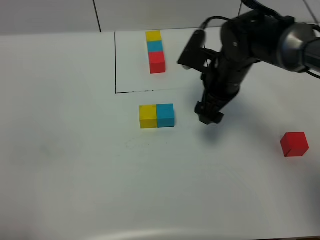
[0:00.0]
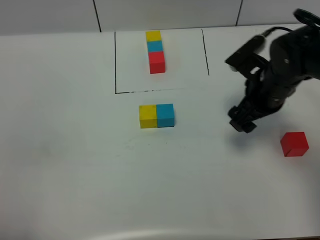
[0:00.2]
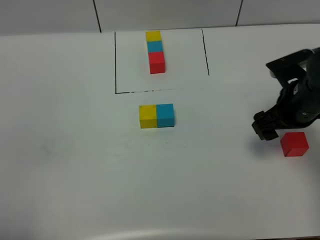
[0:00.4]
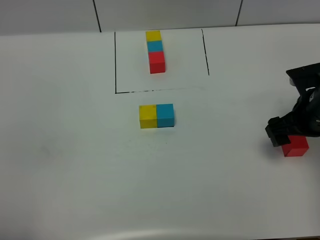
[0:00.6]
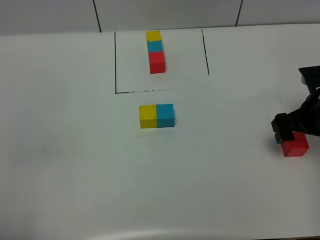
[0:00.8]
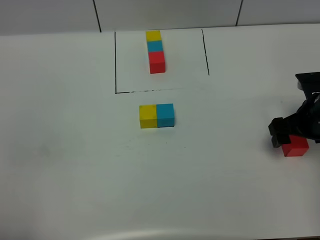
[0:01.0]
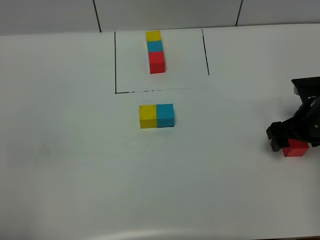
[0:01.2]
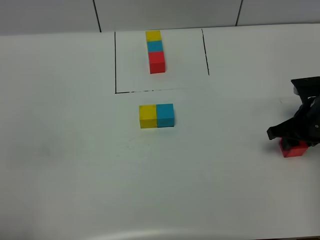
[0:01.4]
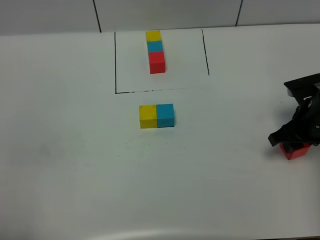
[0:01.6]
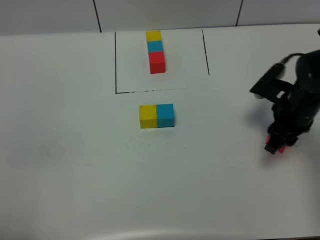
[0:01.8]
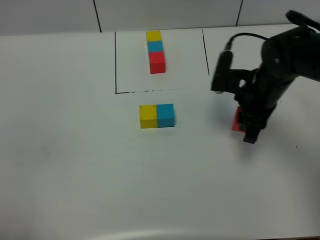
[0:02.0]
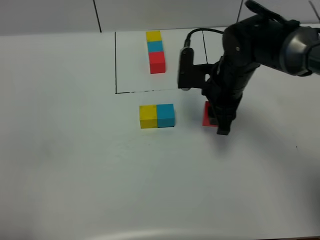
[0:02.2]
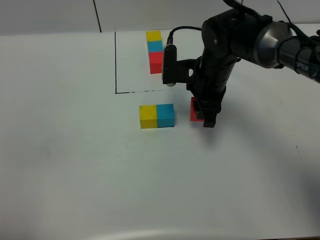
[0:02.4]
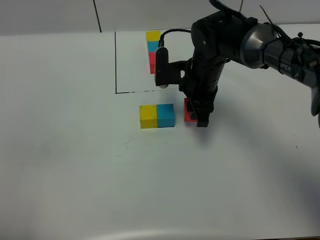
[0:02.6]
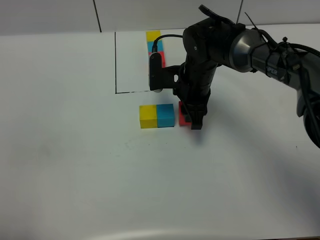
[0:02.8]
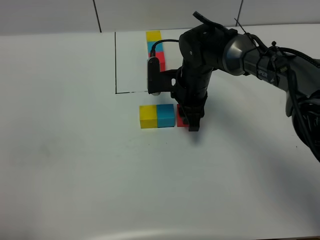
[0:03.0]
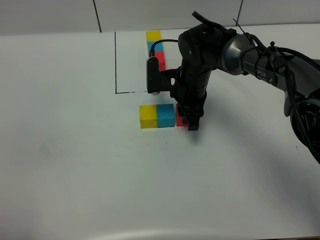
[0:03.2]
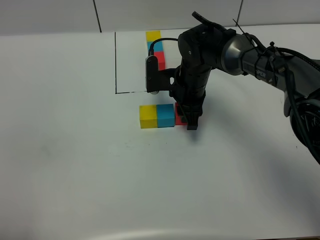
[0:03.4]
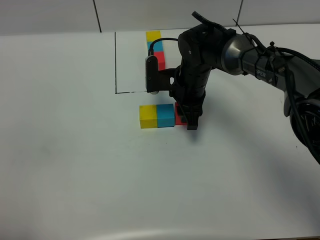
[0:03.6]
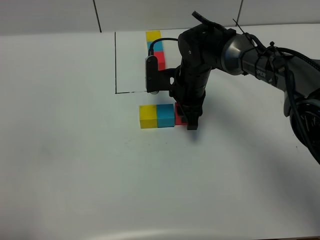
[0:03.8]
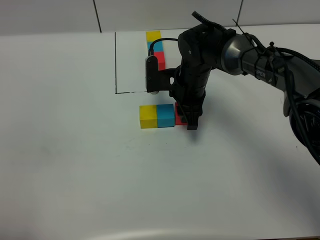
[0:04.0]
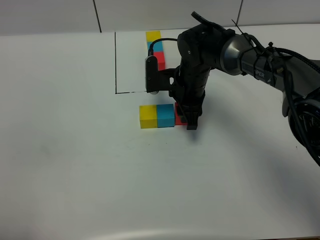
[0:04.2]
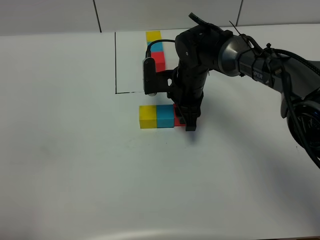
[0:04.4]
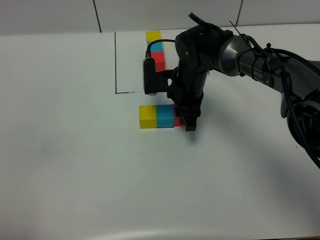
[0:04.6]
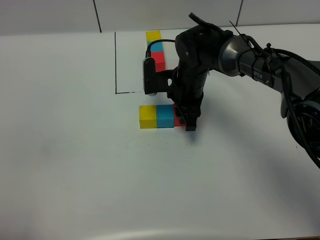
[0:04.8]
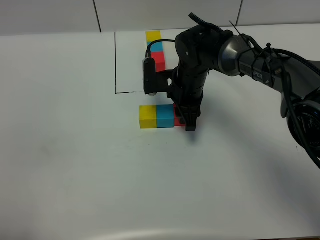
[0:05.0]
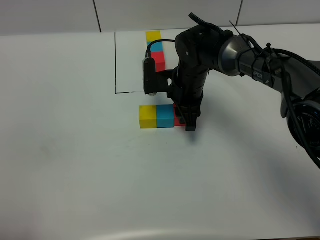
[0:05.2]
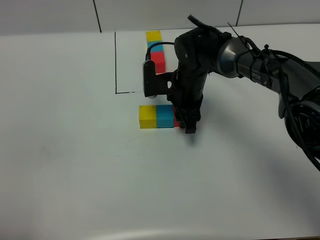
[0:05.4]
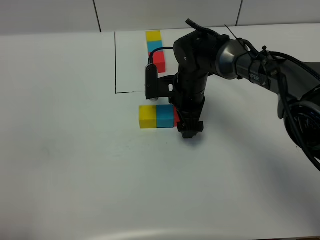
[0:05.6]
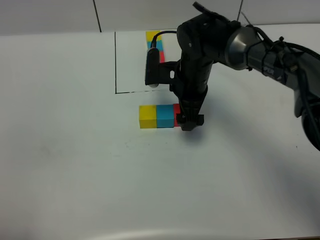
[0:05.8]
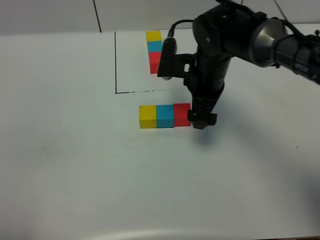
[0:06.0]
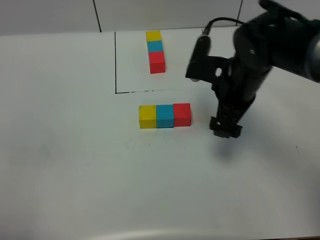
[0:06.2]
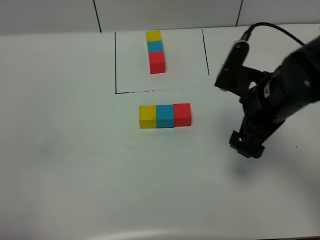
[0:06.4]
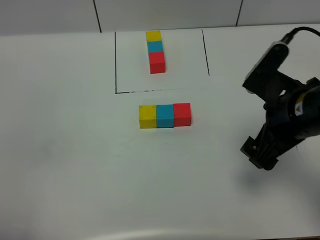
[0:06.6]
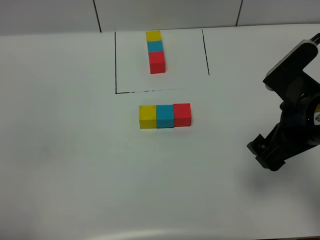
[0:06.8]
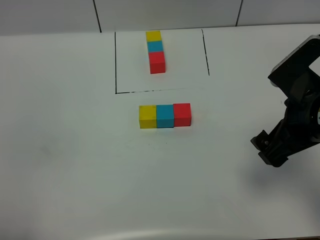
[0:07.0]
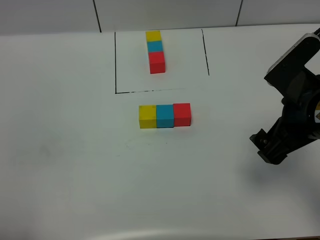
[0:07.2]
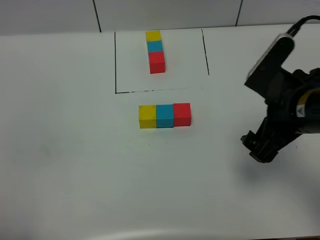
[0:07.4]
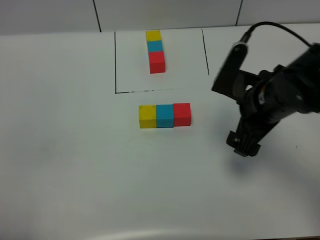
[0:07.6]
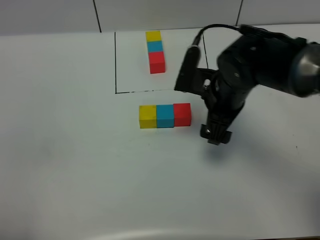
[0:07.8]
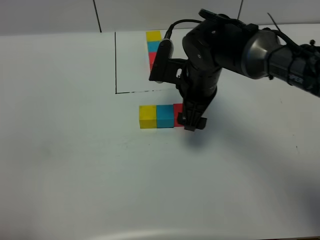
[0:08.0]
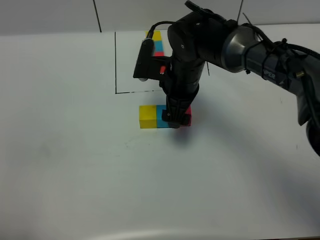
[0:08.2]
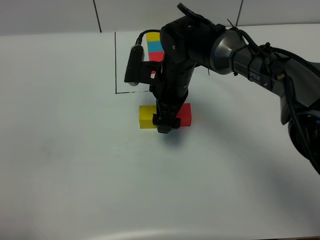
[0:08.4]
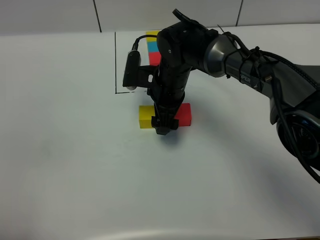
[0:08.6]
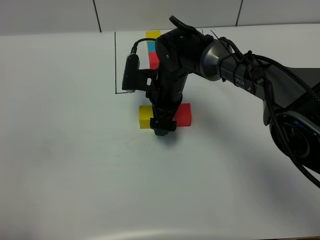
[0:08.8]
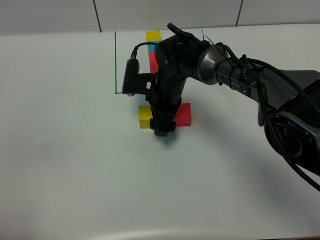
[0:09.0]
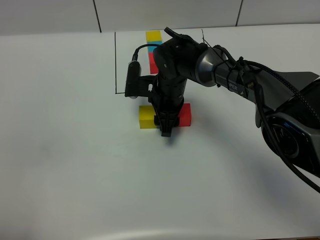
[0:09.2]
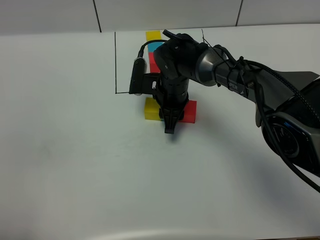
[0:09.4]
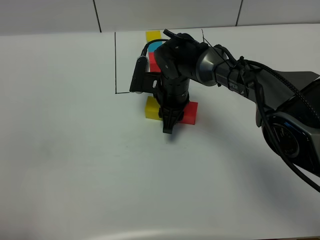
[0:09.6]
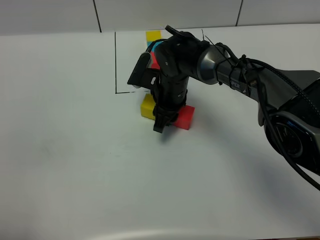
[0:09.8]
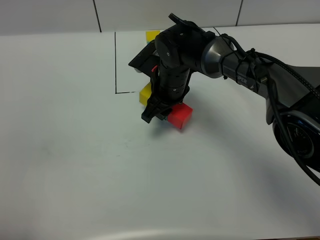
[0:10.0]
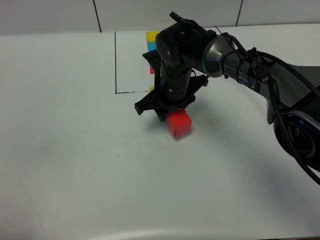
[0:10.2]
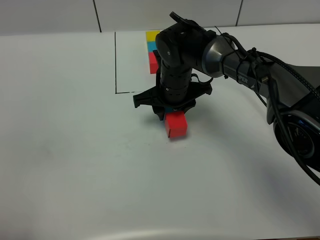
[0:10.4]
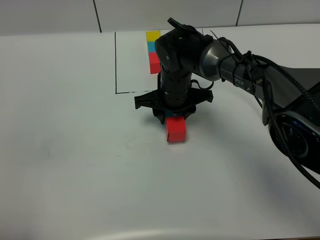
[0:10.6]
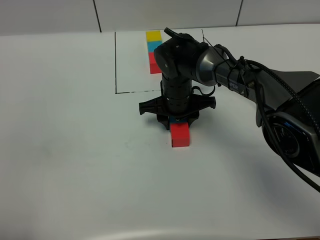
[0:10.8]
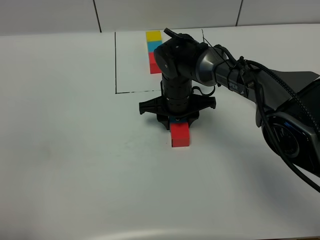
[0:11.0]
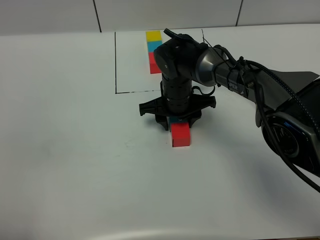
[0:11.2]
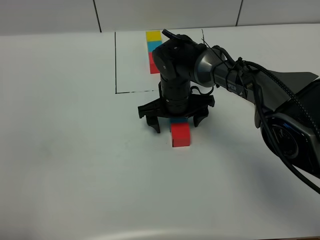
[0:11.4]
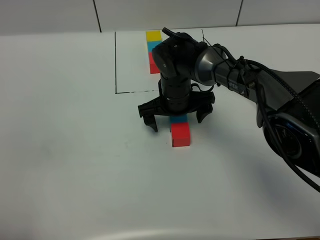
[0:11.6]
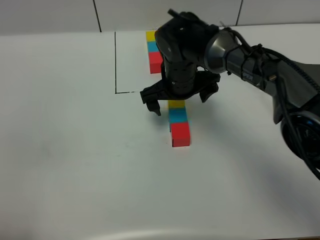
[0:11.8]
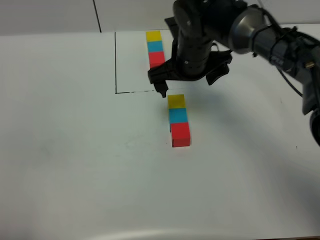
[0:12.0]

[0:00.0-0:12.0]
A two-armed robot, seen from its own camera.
Task of the whole recording: According to the building block template in front, assemble the scattered blocks together.
Step, 0:00.0 to 0:05.6: Put the red cube on the right of the blue cube.
Step, 0:05.8 to 0:11.6: Adjust the pose of the building blocks.
0:00.0 to 0:01.6: The right gripper goes roughly 15 cm to the right, and closes.
0:01.6 to 0:03.0: The right gripper goes approximately 20 cm to the left.
0:03.0 to 0:04.4: Both grippers stay about where they are.
0:04.4 to 0:06.0: The right gripper shifts roughly 5 cm upward, and opens.
0:06.0 to 0:07.6: The right gripper shifts approximately 10 cm backward and to the right.
0:07.6 to 0:09.0: The right gripper heads to the left, forward and downward, covering some 20 cm, and closes.
0:09.0 to 0:10.4: The right gripper closes.
0:10.4 to 0:12.0: The right gripper travels upward by approximately 10 cm, and opens up.

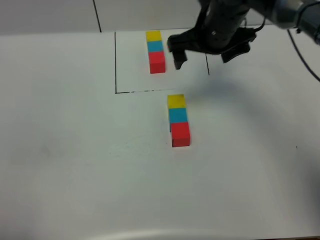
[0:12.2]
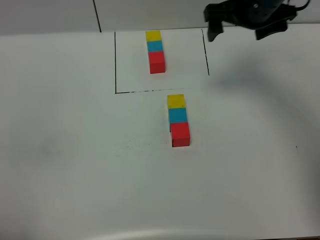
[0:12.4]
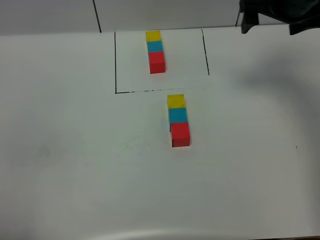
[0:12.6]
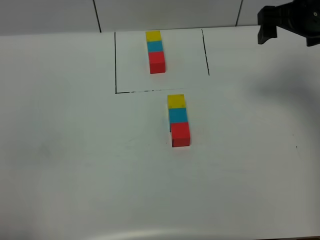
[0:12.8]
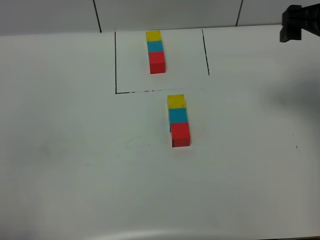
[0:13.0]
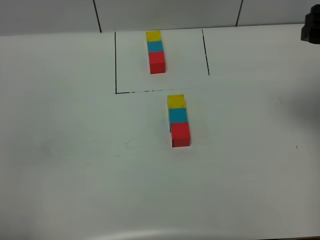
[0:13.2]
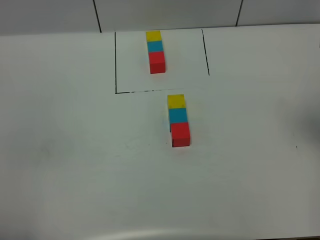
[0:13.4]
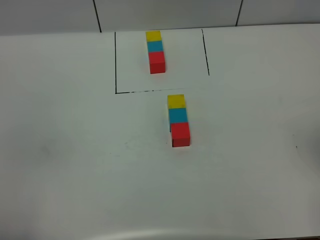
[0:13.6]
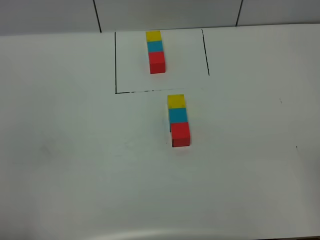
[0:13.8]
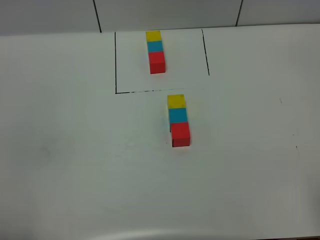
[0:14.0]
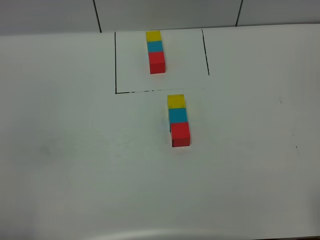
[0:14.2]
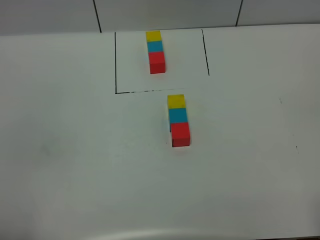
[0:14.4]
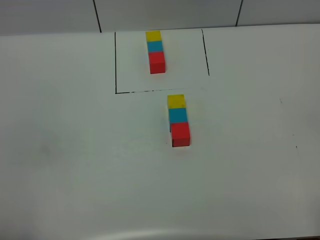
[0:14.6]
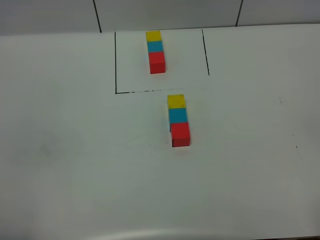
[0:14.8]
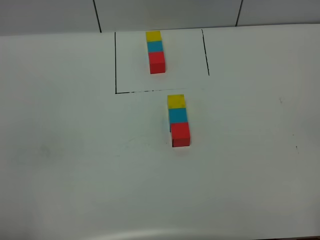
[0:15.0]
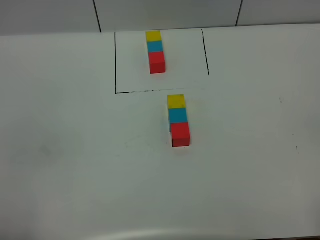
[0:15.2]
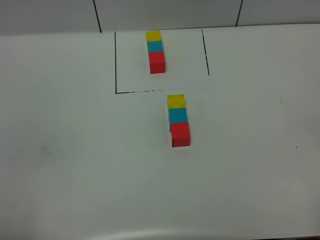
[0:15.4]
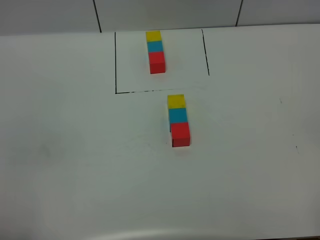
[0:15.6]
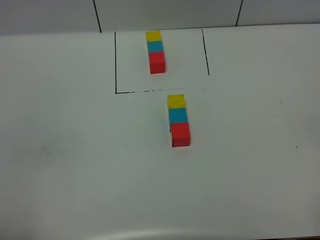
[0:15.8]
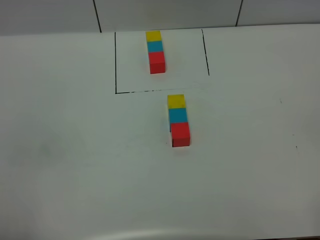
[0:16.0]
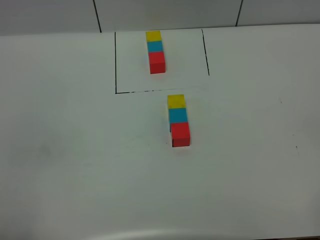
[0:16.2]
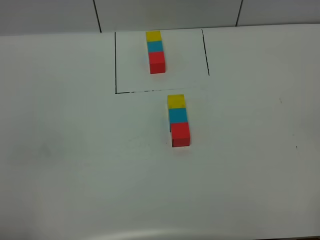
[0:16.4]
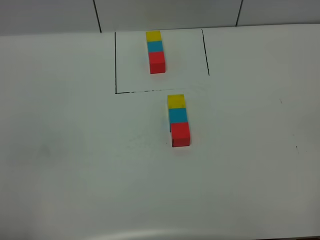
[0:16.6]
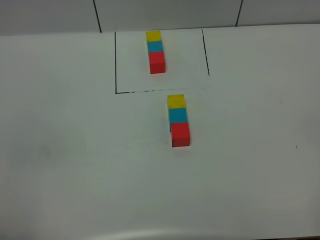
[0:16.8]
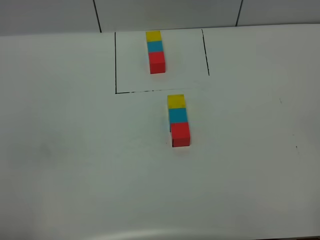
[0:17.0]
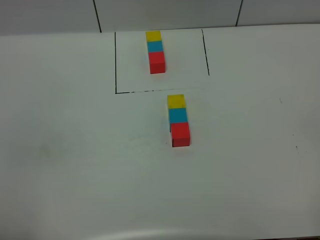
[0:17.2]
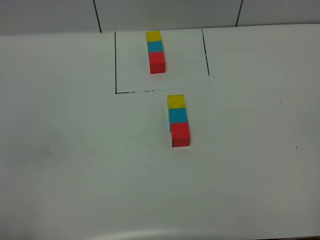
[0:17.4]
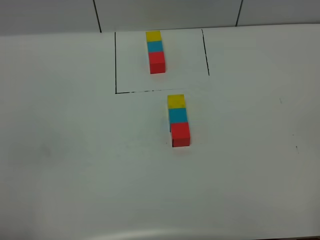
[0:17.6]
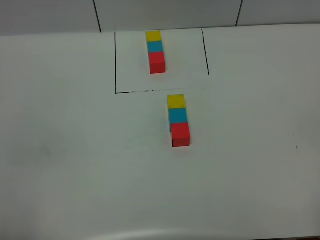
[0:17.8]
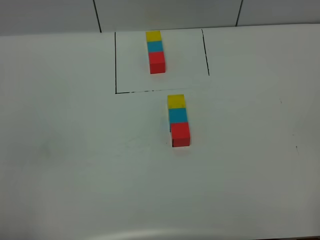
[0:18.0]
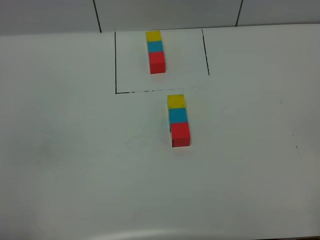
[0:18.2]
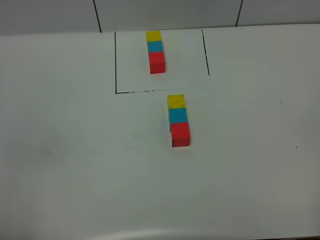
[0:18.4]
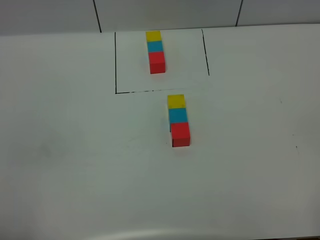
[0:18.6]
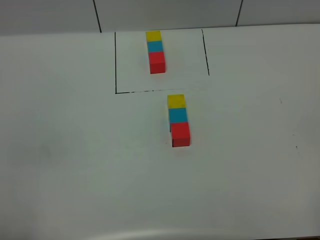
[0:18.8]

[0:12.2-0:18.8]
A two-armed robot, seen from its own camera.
Task of the whole recording: According to the building block template in front, assemble the scattered blocks together.
0:12.2 to 0:13.8: The right gripper heads backward and to the right, covering approximately 35 cm.
0:15.4 to 0:18.8: Neither gripper changes place.

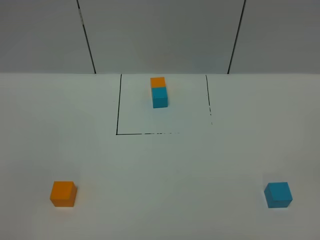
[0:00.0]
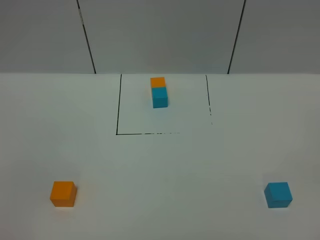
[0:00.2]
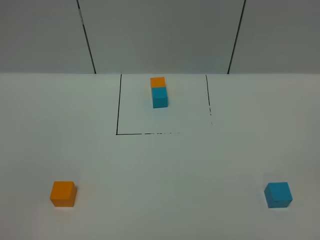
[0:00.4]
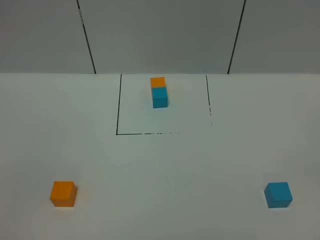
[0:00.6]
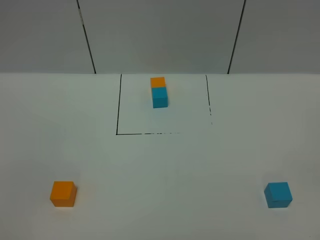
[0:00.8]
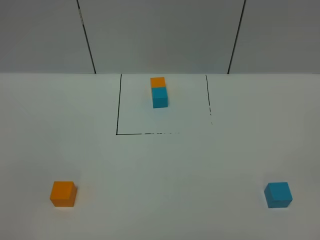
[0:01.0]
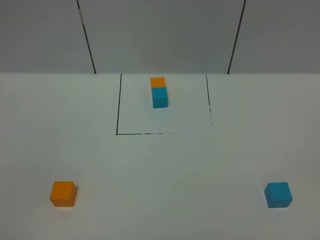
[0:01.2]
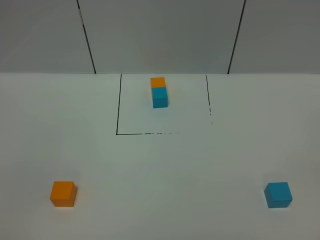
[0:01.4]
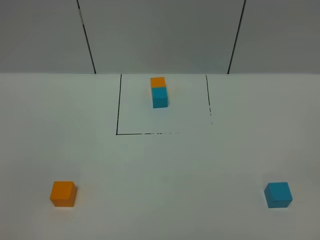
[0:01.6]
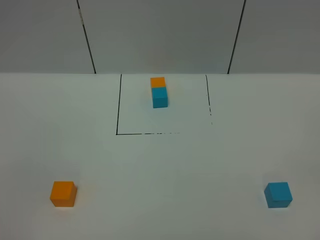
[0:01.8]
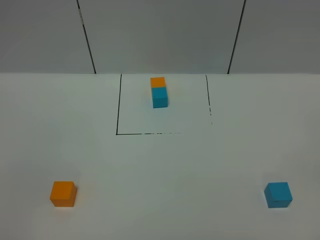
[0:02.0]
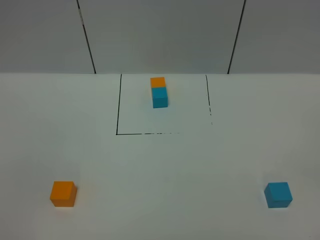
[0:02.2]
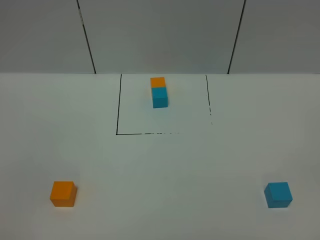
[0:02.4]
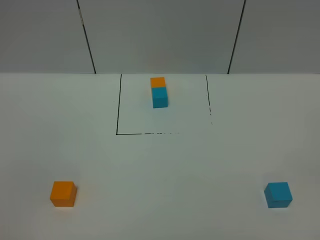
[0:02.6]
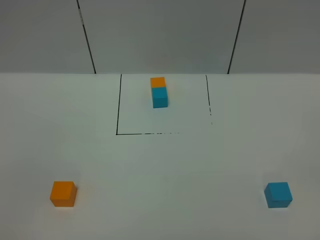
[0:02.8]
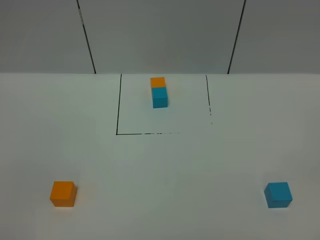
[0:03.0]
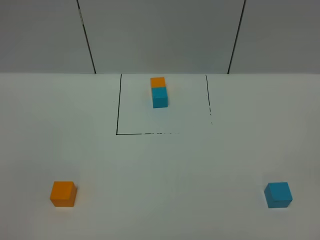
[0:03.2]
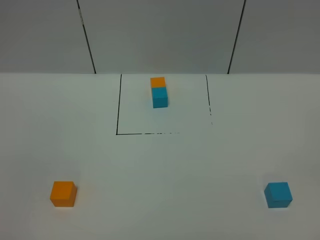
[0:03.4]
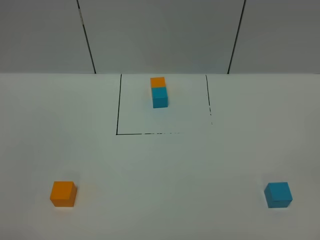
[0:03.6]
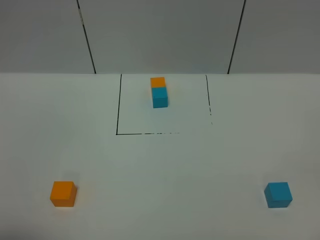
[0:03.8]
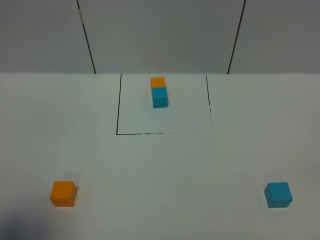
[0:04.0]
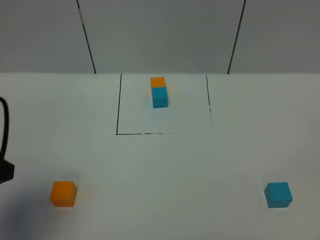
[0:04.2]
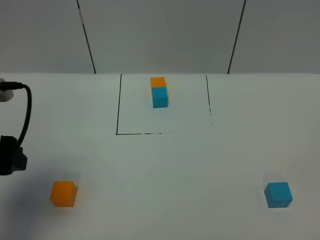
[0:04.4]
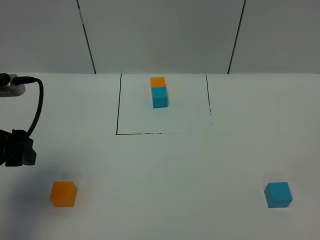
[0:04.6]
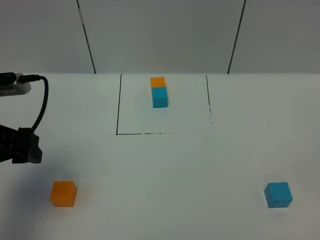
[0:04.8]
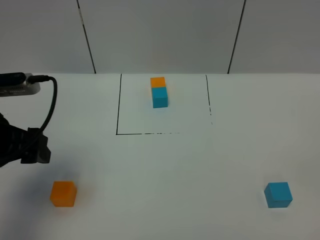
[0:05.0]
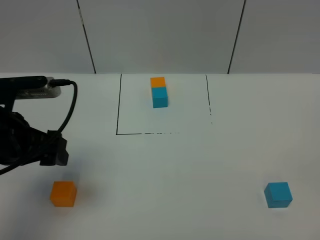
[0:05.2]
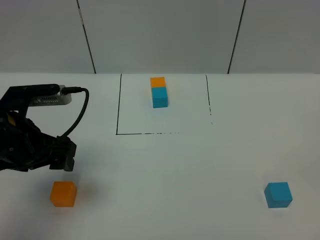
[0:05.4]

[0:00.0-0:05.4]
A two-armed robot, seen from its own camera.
Task of the whole recording: According to the building block template in front, assemble the scattered blocks together.
0:00.0 to 0:02.8: The two grippers keep their place.
0:02.8 to 0:04.0: The left gripper shifts roughly 15 cm forward.
0:04.0 to 0:05.4: The left gripper shifts about 15 cm forward, downward and to the right.
